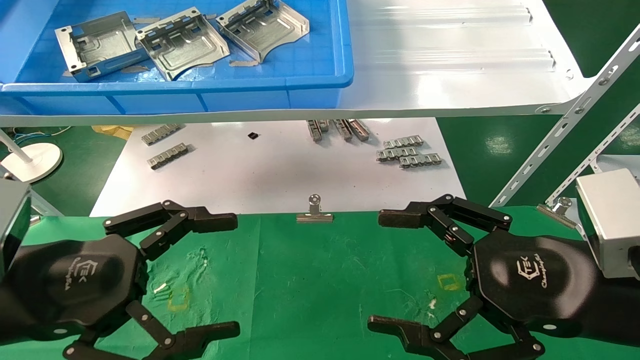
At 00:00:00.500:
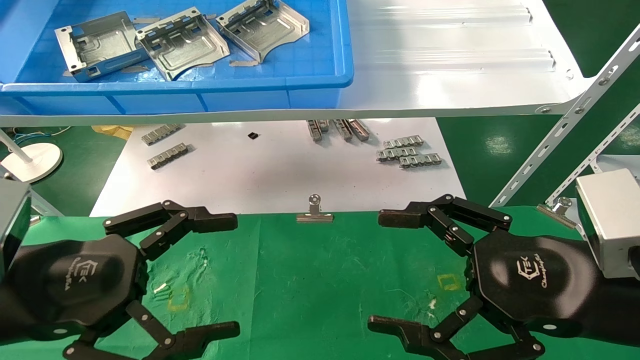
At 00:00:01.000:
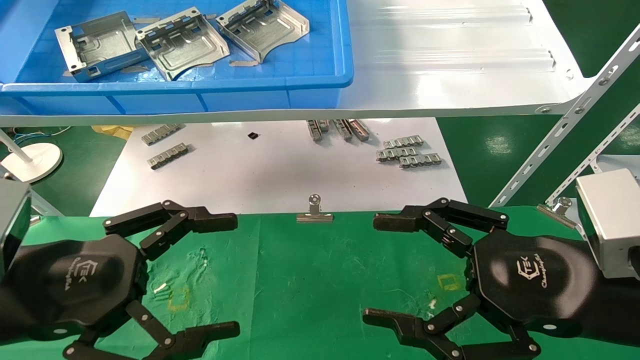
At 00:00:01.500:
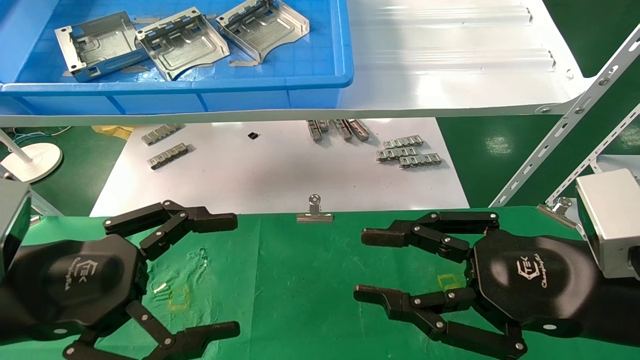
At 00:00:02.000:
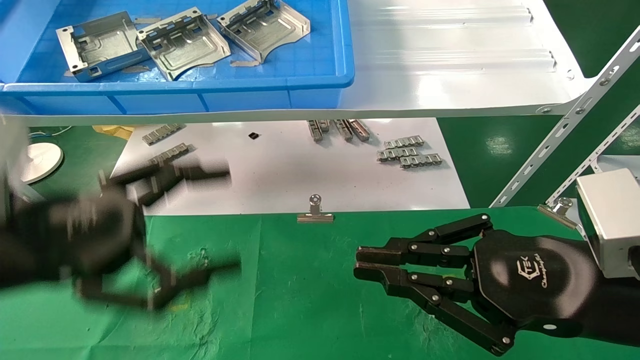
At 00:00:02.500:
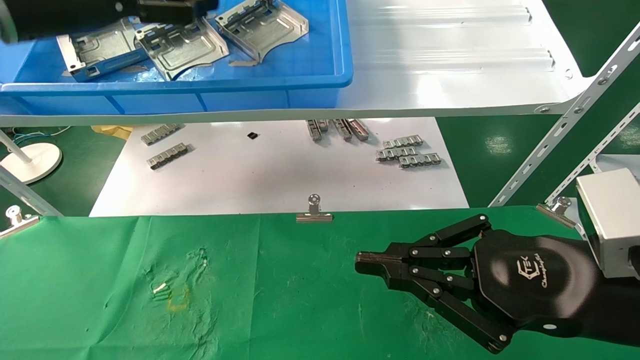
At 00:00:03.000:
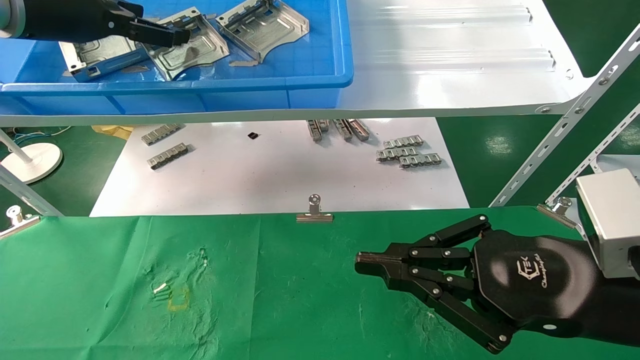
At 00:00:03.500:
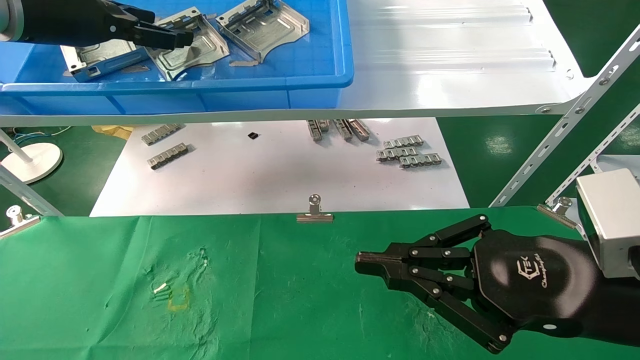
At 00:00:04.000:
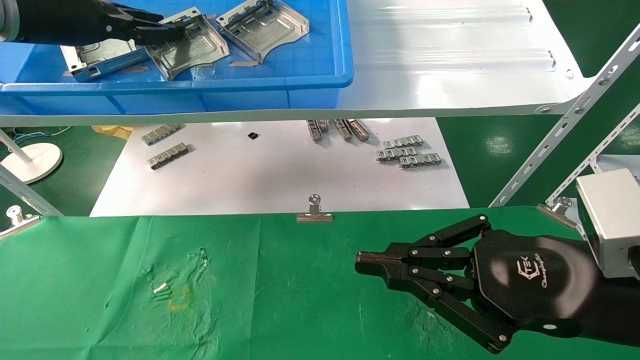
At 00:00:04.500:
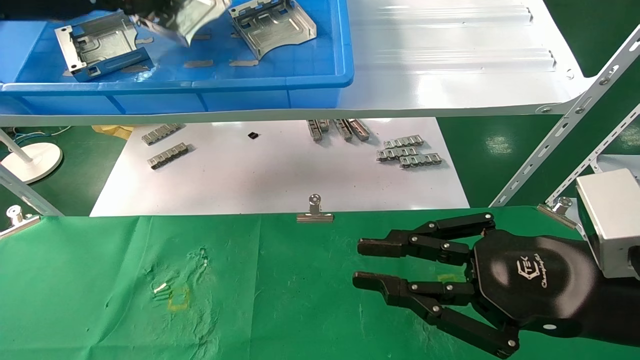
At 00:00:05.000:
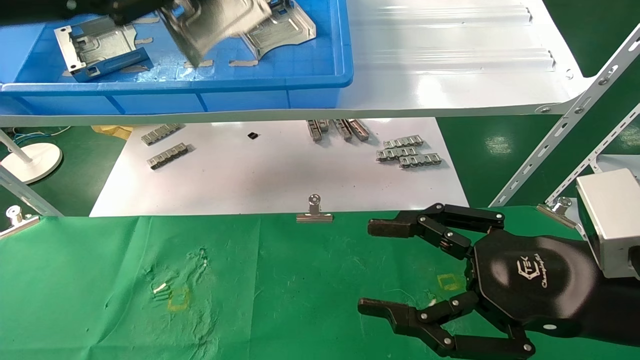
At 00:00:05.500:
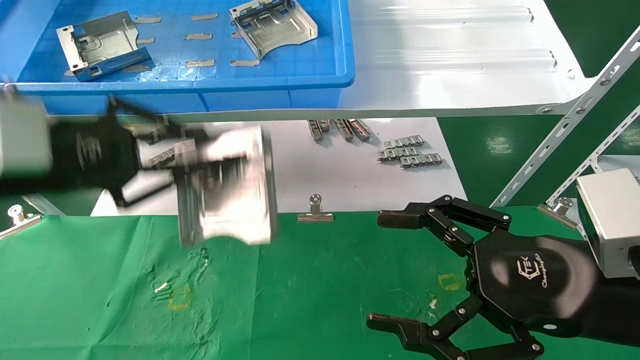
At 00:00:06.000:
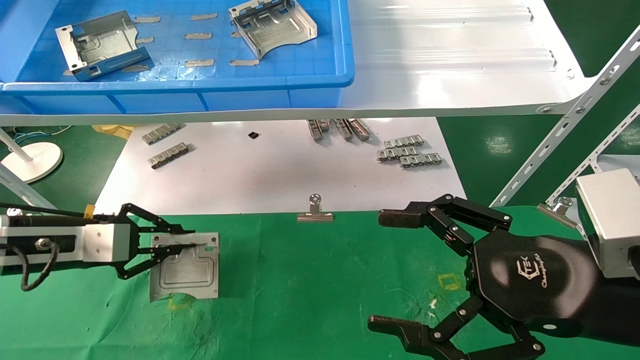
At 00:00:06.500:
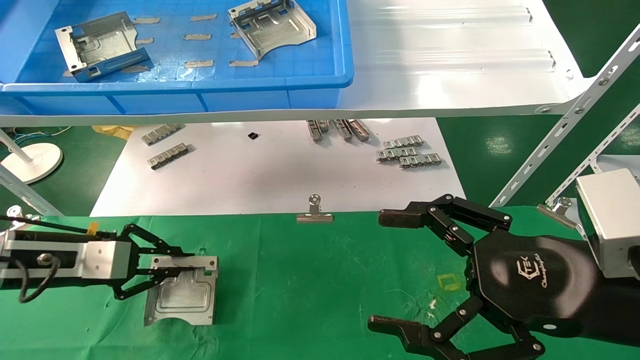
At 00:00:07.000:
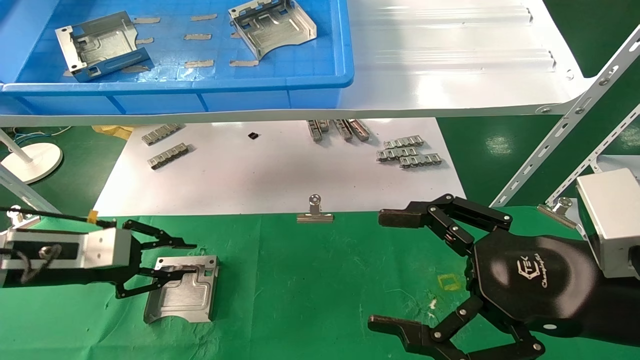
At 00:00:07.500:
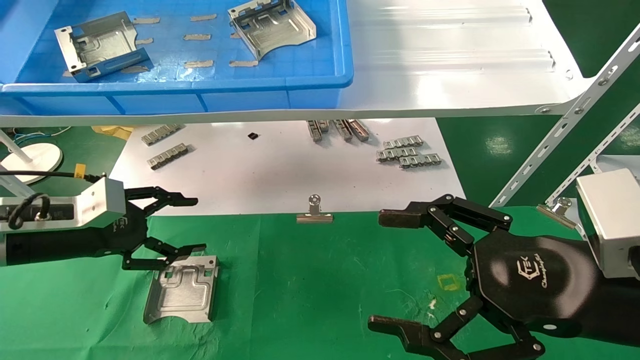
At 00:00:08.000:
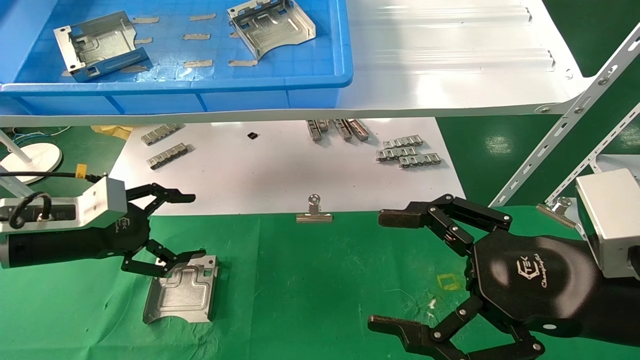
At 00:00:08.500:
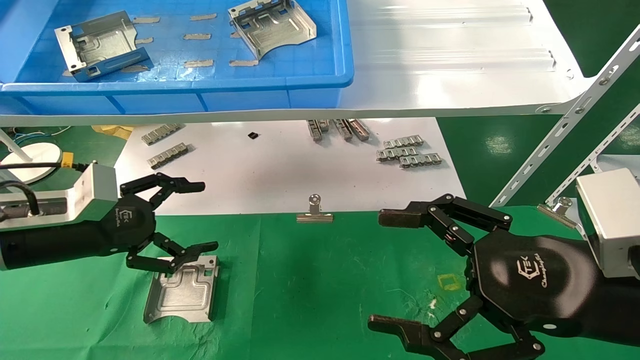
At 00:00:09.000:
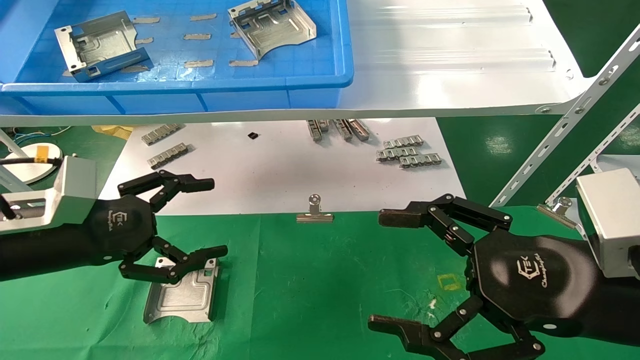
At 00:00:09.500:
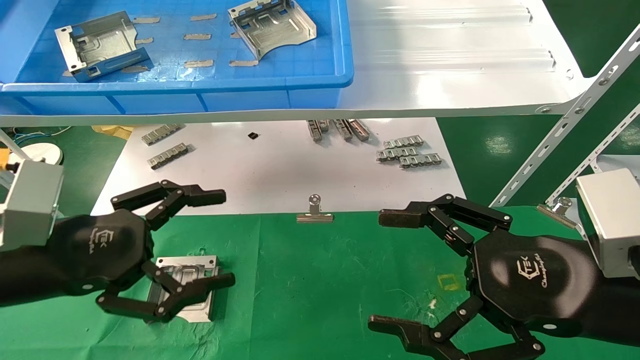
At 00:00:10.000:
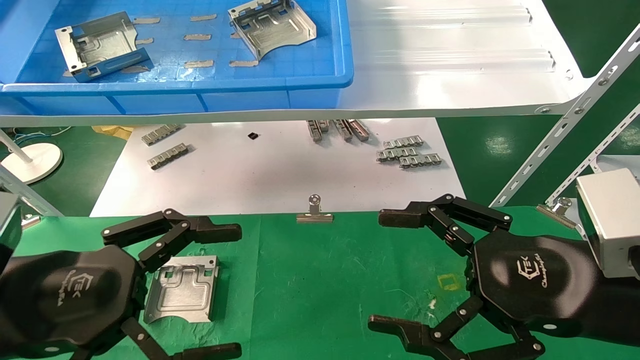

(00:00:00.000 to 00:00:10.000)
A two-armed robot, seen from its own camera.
Task of the whole recording: use the mechanical arm to pick up the parts and place them on the table.
Step, 00:00:02.500 - 00:00:04.000: Pick up the hard drive bracket from the feeding area.
Step, 00:00:04.500 - 00:00:07.000: Place the hard drive bracket into the box.
00:00:00.000 - 00:00:02.000: The left gripper shifts some 5 cm upward. The right gripper closes its fingers.
00:00:02.000 - 00:00:04.000: The left gripper goes about 25 cm upward and forward, and closes its fingers.
00:00:04.000 - 00:00:06.000: The left gripper heads downward, covering roughly 25 cm, and closes up. Meanwhile the right gripper opens up.
00:00:06.000 - 00:00:08.000: The left gripper opens.
00:00:08.000 - 00:00:10.000: The left gripper moves backward and to the right, roughly 20 cm.
